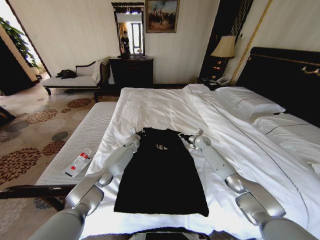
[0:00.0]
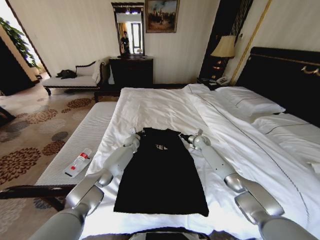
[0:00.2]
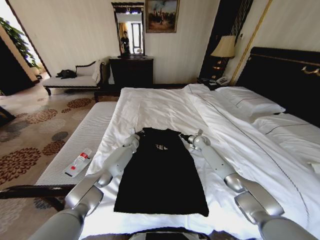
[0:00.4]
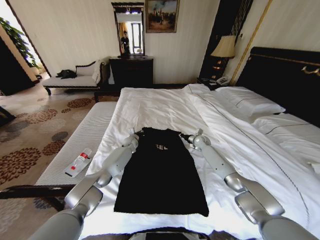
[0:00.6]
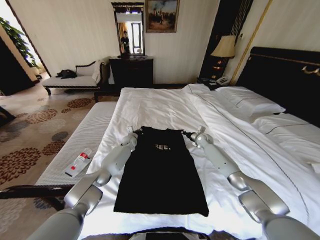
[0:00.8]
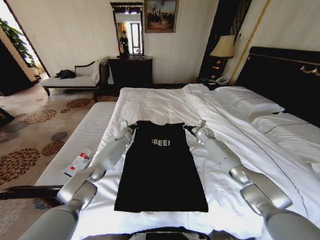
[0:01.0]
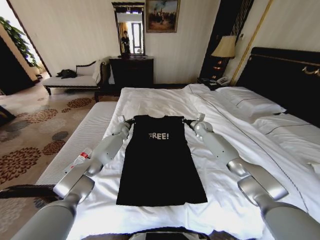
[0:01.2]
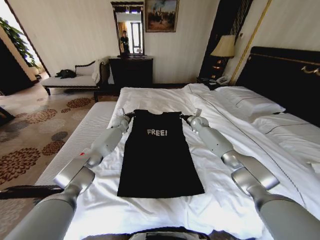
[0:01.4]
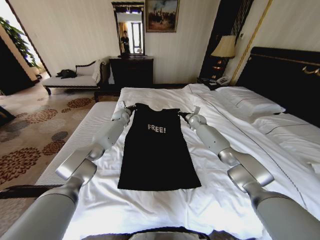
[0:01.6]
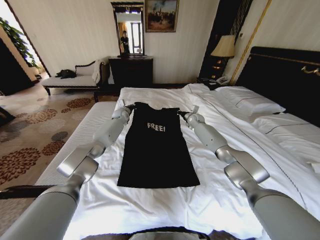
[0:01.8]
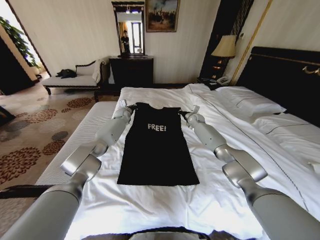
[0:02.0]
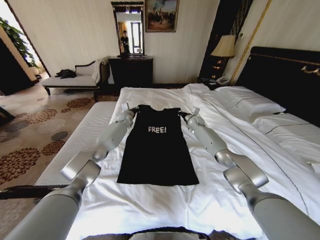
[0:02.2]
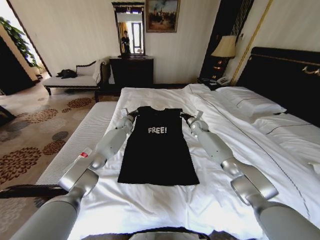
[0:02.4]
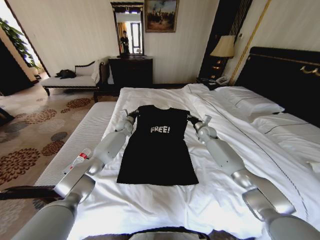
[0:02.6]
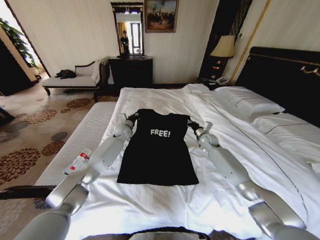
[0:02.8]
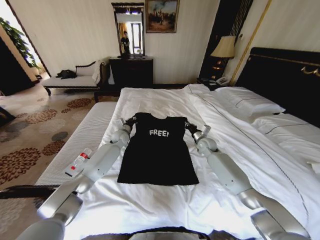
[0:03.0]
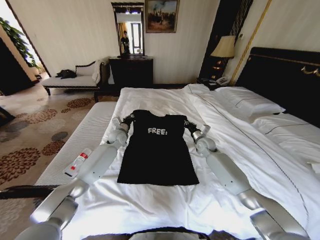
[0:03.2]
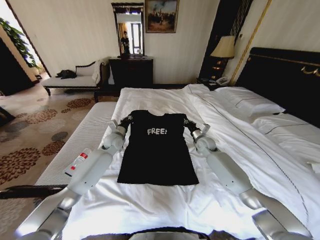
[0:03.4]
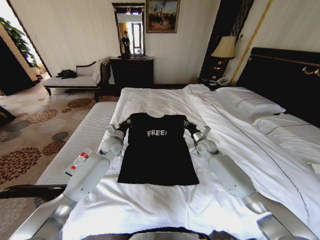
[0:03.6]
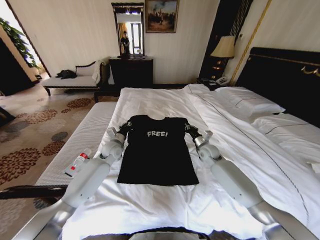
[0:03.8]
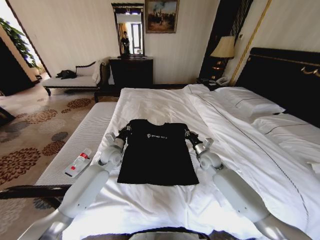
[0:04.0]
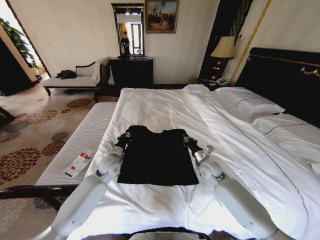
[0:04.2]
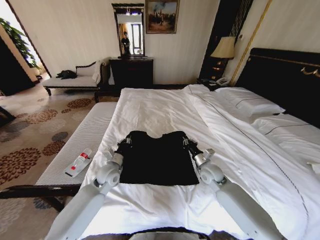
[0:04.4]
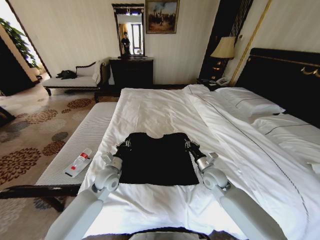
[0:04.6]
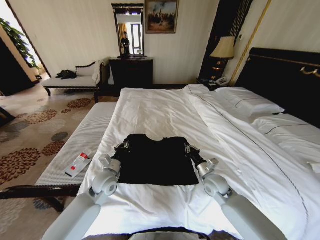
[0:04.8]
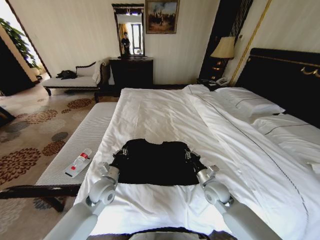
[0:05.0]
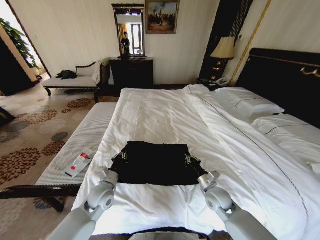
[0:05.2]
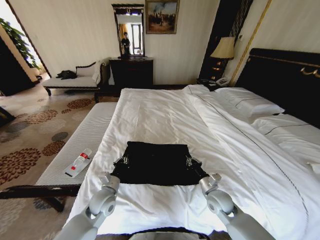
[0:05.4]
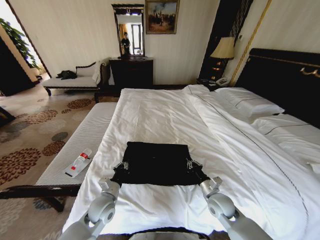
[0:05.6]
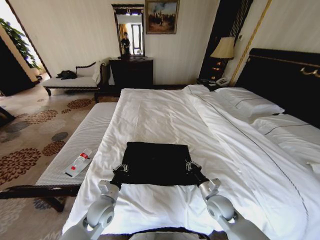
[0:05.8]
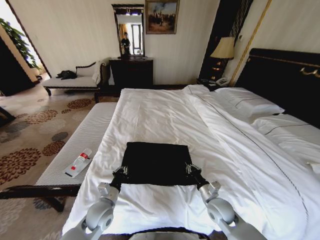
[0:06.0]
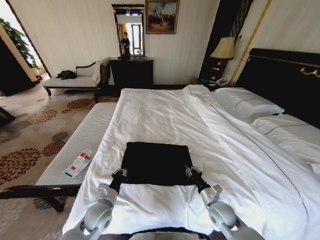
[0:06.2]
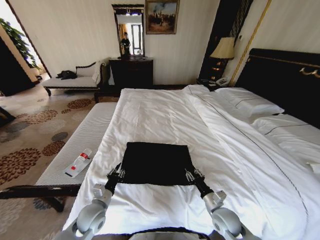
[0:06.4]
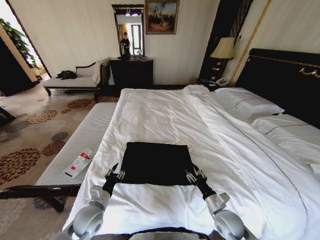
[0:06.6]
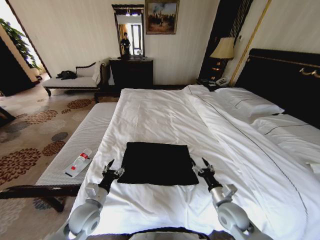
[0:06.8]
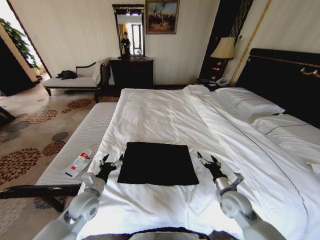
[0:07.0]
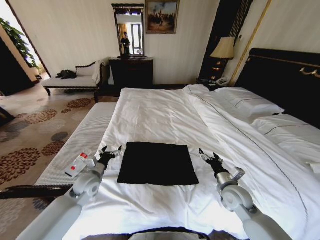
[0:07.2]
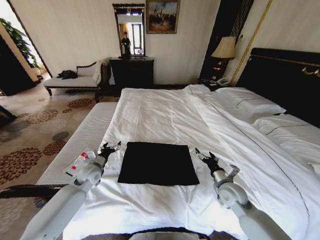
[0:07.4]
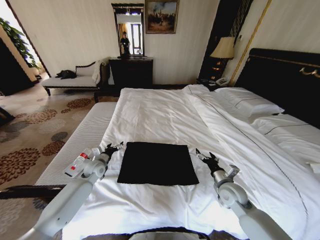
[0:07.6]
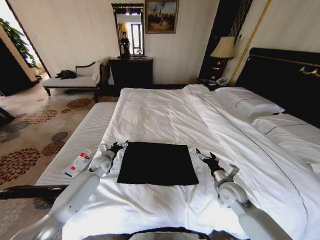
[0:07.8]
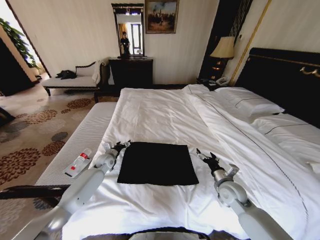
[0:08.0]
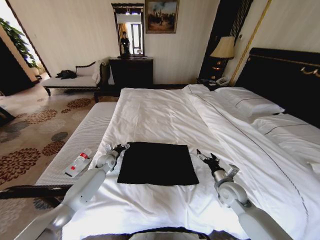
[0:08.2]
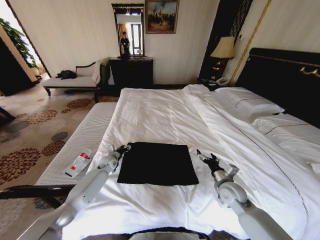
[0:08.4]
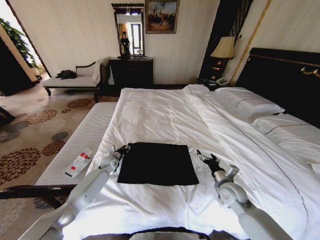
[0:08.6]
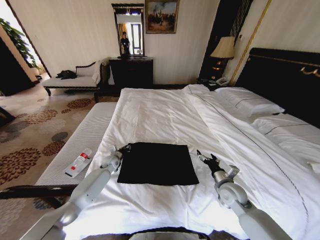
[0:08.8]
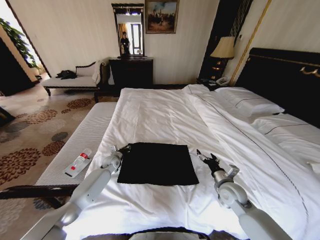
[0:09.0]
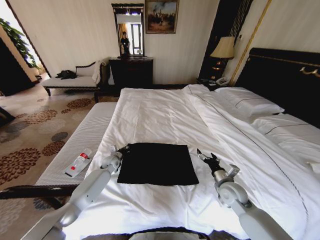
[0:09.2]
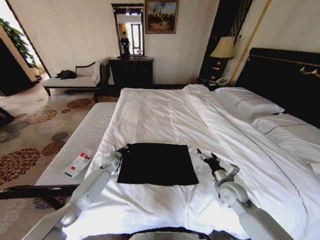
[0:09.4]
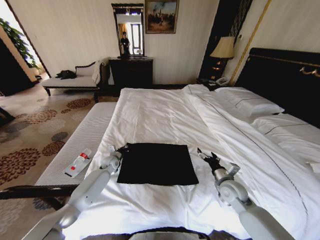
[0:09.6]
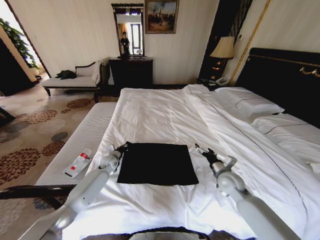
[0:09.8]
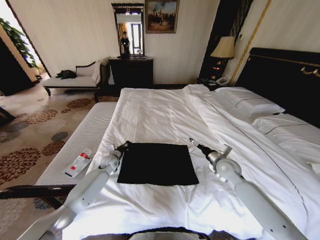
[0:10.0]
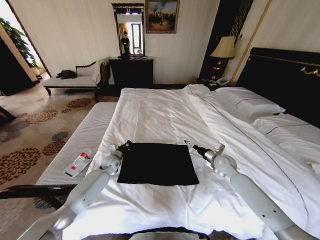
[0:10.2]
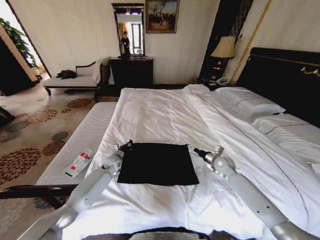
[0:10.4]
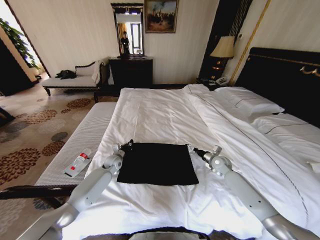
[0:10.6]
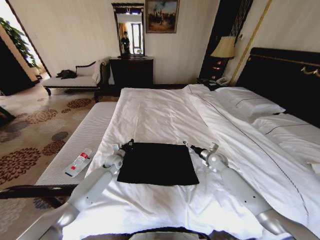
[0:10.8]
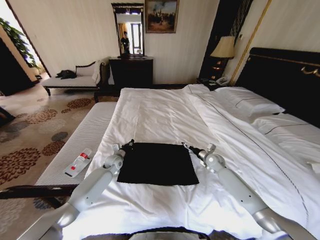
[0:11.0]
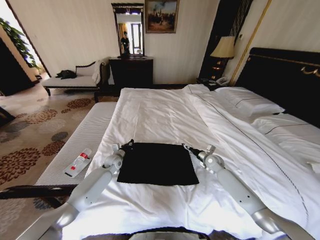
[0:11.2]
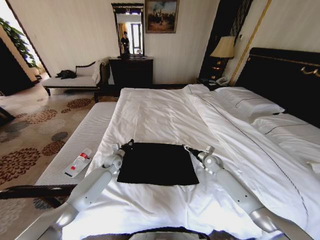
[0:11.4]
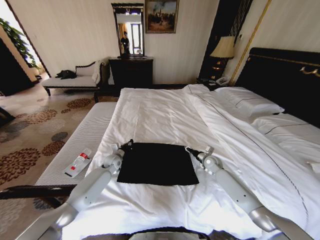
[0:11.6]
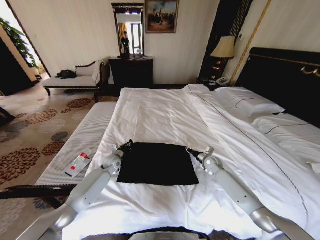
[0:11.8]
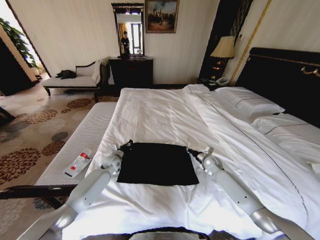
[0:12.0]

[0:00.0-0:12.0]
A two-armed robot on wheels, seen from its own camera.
Task of the whole recording: Fold the clothes on the bed.
0:00.0 to 0:01.6: The right gripper heads upward and forward, covering some 15 cm. Meanwhile the left gripper moves upward, forward and to the left, roughly 20 cm.
0:01.6 to 0:03.0: Both grippers travel together backward and downward, some 15 cm.
0:03.0 to 0:04.4: The two grippers go about 20 cm backward.
0:04.4 to 0:06.0: Both grippers travel together backward and downward, some 15 cm.
0:06.0 to 0:07.6: The right gripper heads upward, covering some 5 cm, and opens its fingers. The left gripper heads forward and to the left, covering approximately 20 cm, and opens.
0:07.6 to 0:09.0: The left gripper shifts some 10 cm forward and downward, and closes up.
0:09.0 to 0:10.4: The right gripper shifts about 15 cm forward.
0:10.4 to 0:12.0: The right gripper ends up about 5 cm from where it was, and closes up.

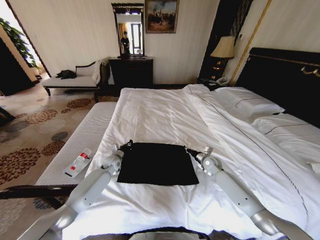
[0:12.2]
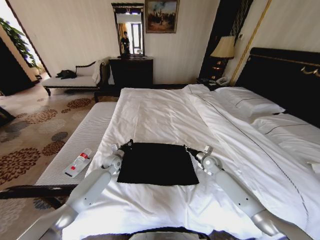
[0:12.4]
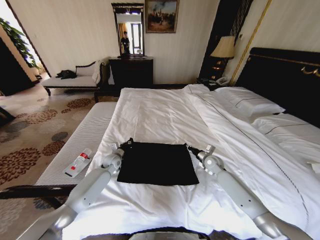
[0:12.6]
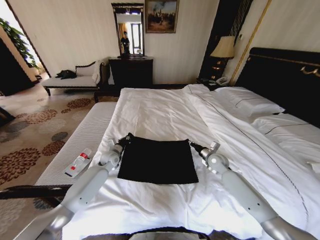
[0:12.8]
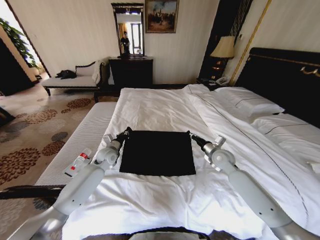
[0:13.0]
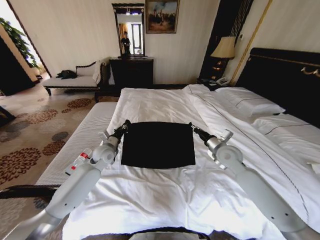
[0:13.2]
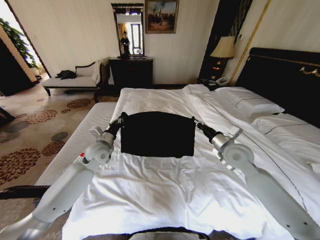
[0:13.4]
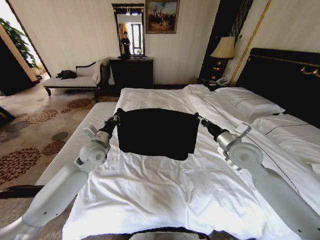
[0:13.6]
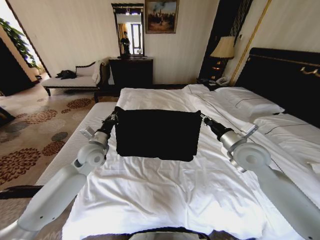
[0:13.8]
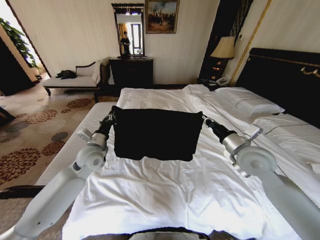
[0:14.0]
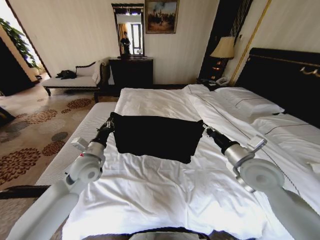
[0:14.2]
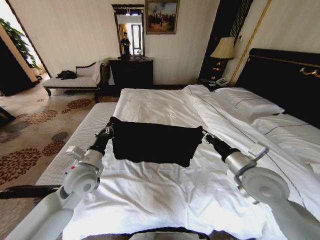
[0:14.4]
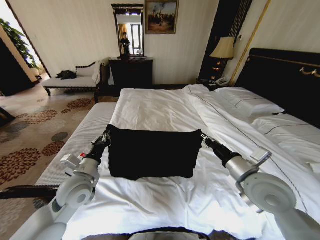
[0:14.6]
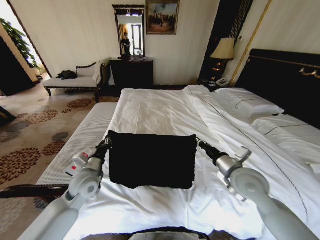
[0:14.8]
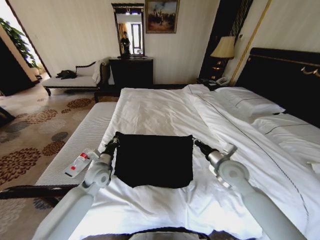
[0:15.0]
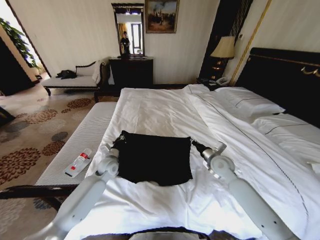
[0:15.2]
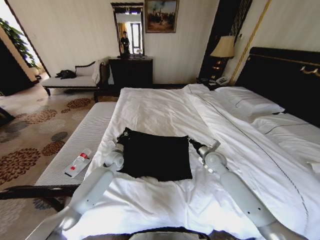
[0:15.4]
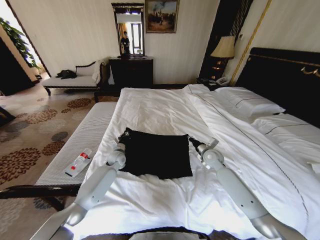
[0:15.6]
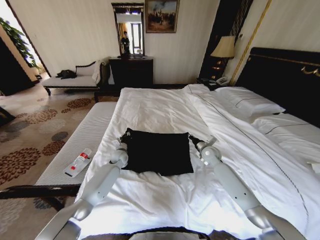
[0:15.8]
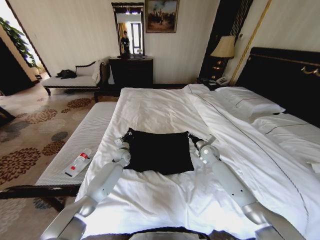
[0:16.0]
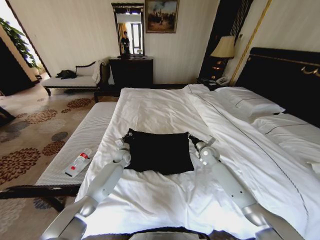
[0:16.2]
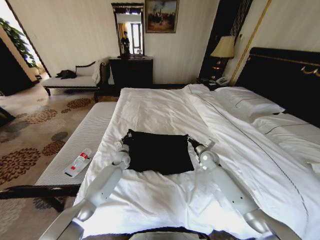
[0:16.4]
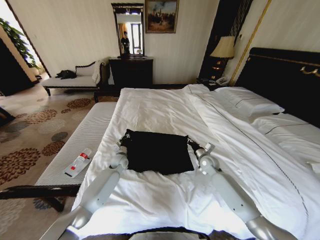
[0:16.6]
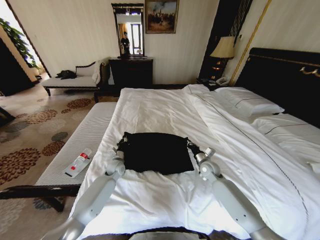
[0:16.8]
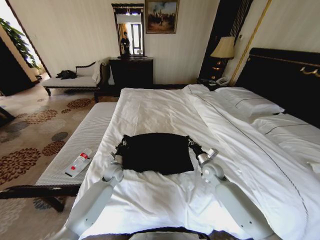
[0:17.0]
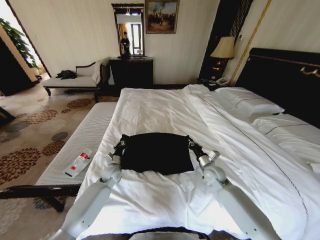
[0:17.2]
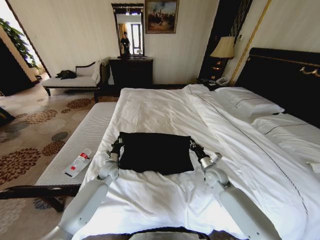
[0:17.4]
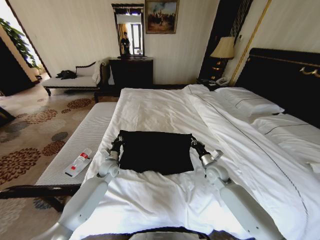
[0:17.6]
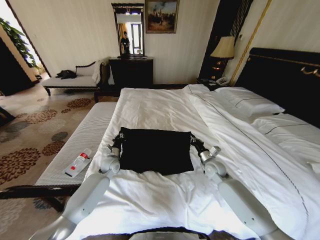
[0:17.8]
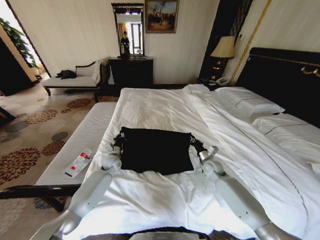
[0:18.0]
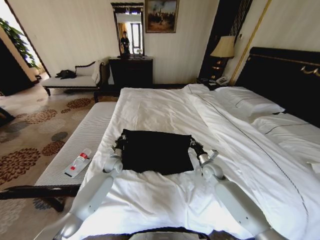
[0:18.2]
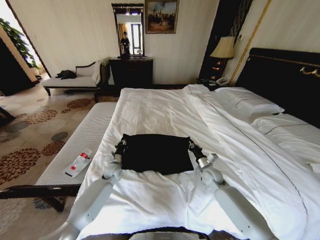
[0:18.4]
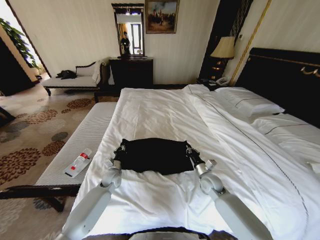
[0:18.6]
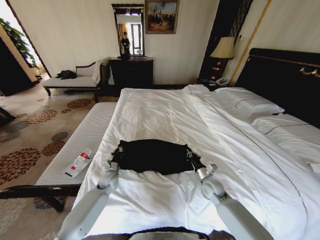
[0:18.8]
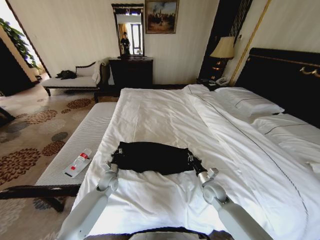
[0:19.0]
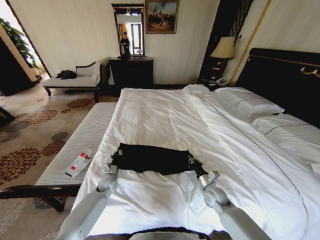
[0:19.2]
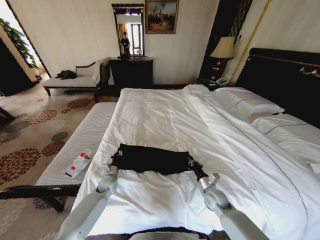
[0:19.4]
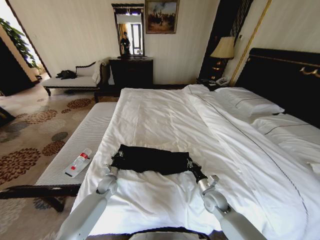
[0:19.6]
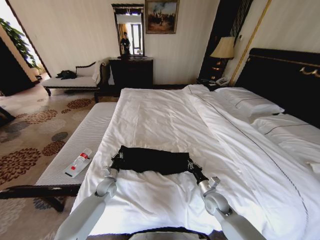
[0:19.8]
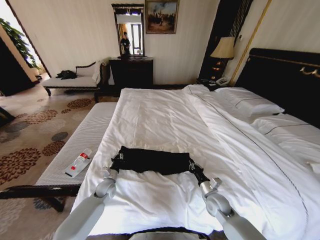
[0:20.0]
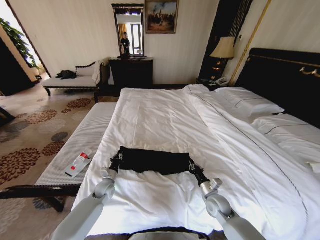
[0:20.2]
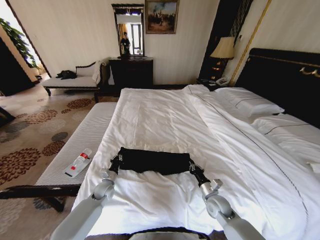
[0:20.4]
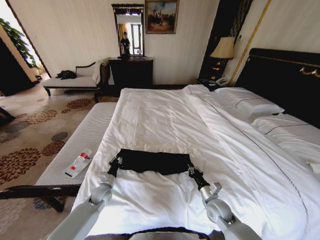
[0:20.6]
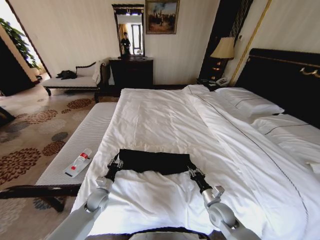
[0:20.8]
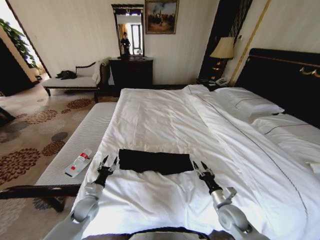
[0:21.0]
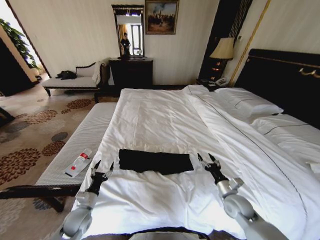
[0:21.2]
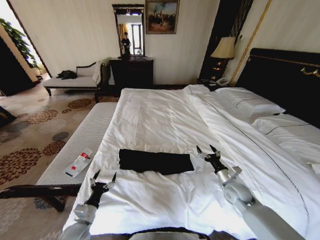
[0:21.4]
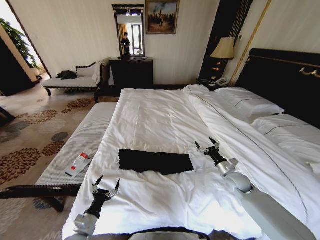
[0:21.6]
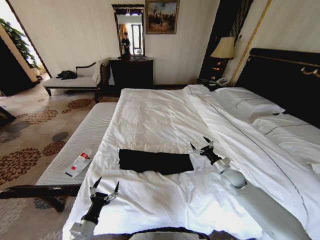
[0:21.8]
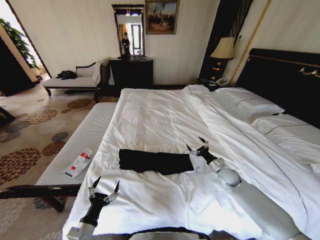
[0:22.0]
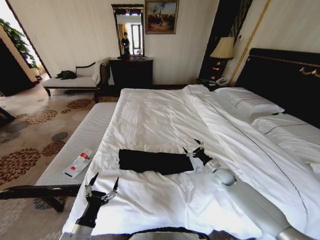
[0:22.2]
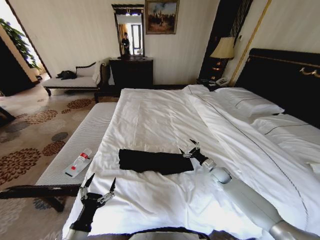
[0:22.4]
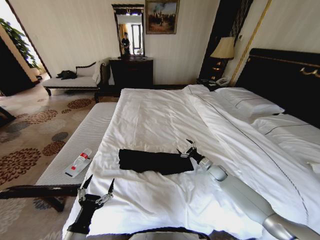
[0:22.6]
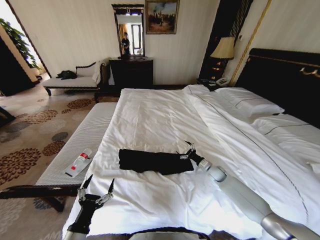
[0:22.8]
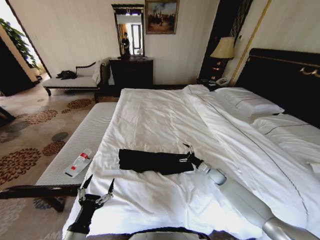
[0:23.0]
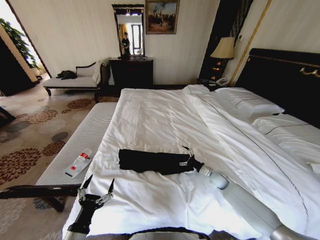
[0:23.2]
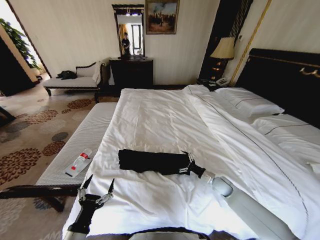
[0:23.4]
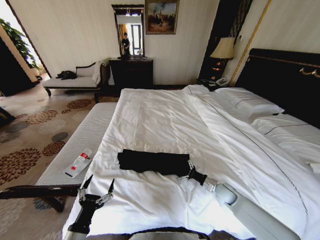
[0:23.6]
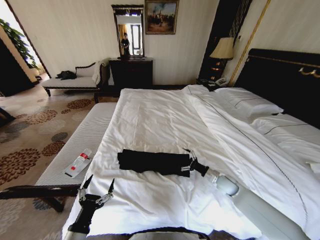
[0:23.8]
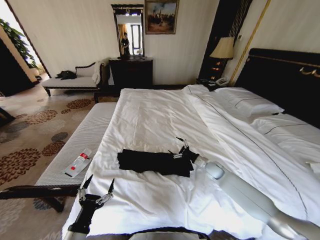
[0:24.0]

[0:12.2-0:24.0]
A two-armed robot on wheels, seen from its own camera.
Task of the whole recording: Fold the clothes on the bed.
0:12.2 to 0:13.6: The left gripper heads upward, covering roughly 20 cm. The right gripper shifts some 25 cm upward and backward.
0:13.6 to 0:15.2: The two grippers go some 10 cm downward. The left gripper travels backward and back again, approximately 15 cm each way; the right gripper reaches about 10 cm backward, then returns.
0:15.2 to 0:16.6: The right gripper heads downward and forward, covering approximately 10 cm. Meanwhile the left gripper shifts some 10 cm forward and downward.
0:18.2 to 0:19.6: The left gripper is displaced backward and downward by roughly 10 cm; the right gripper shifts roughly 15 cm backward.
0:19.6 to 0:21.0: The left gripper is displaced backward and to the left by some 10 cm, and opens its fingers, while the right gripper shifts about 5 cm backward, and opens its fingers.
0:21.0 to 0:22.6: The right gripper is displaced forward by roughly 20 cm, and opens; the left gripper goes some 20 cm backward and upward, and opens its fingers.
0:22.6 to 0:24.0: The right gripper moves about 10 cm backward and comes back.
